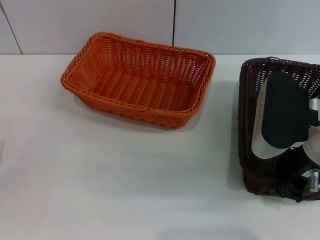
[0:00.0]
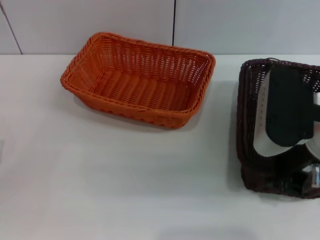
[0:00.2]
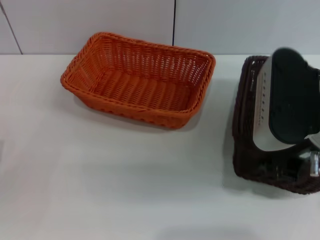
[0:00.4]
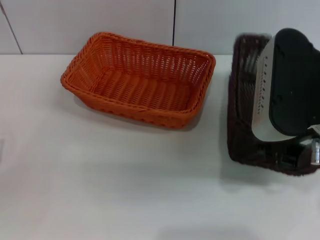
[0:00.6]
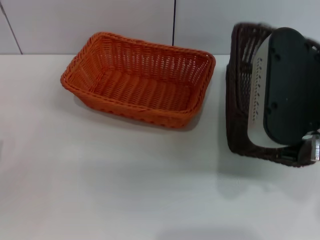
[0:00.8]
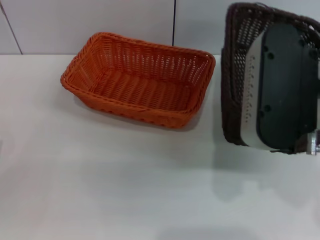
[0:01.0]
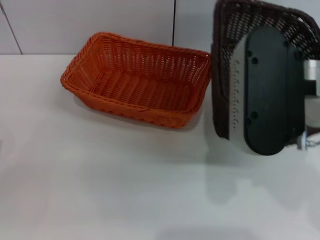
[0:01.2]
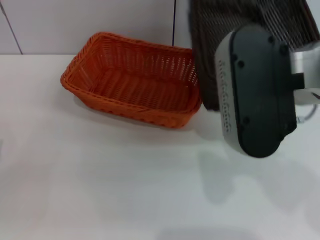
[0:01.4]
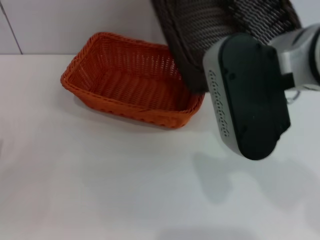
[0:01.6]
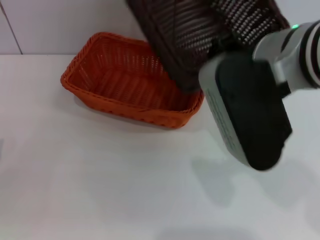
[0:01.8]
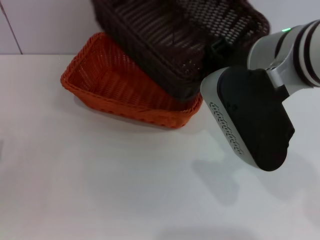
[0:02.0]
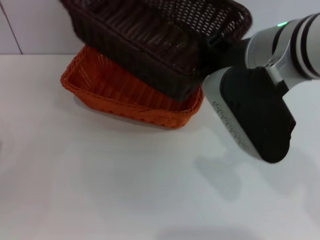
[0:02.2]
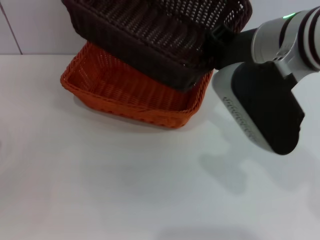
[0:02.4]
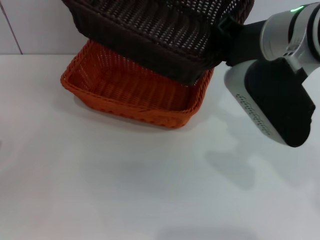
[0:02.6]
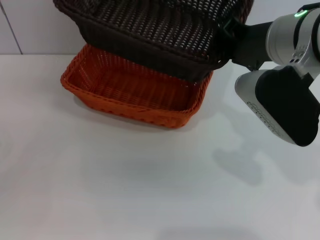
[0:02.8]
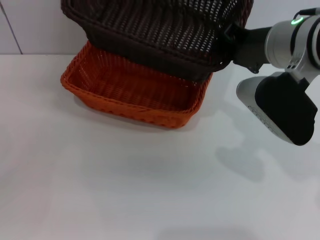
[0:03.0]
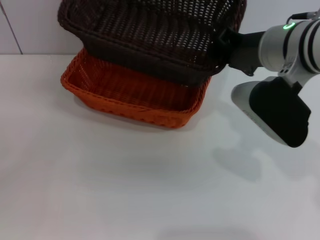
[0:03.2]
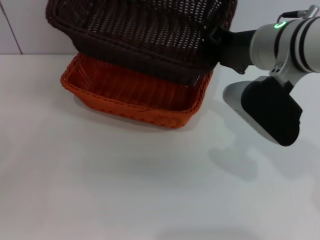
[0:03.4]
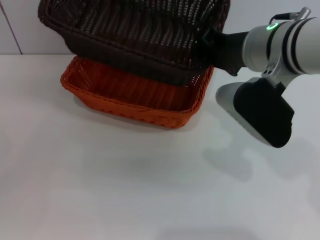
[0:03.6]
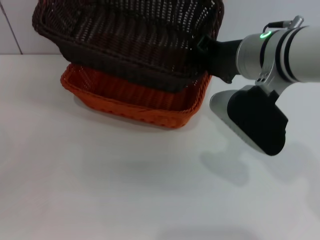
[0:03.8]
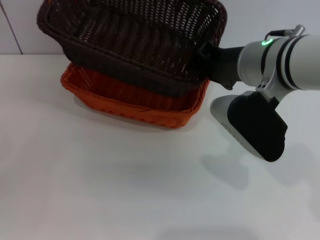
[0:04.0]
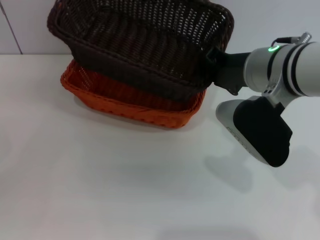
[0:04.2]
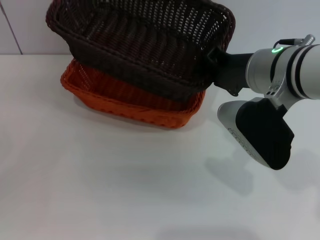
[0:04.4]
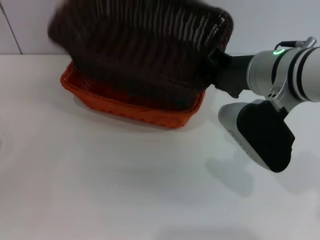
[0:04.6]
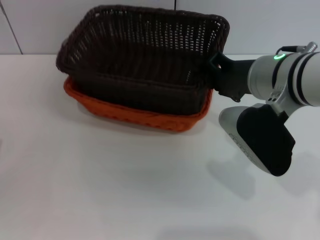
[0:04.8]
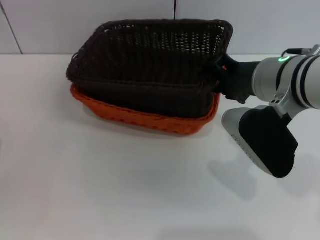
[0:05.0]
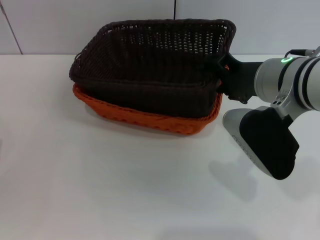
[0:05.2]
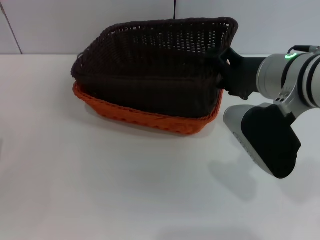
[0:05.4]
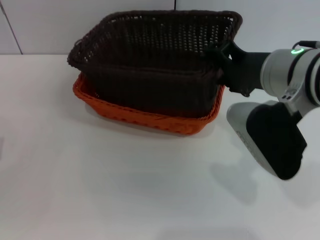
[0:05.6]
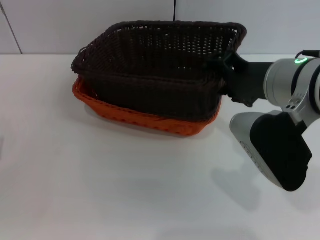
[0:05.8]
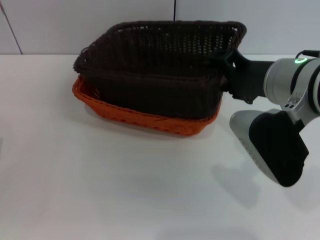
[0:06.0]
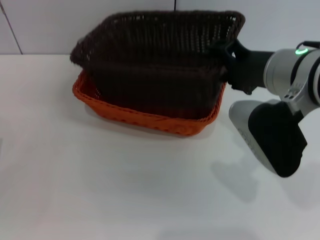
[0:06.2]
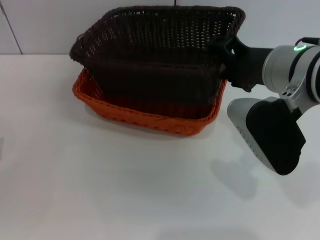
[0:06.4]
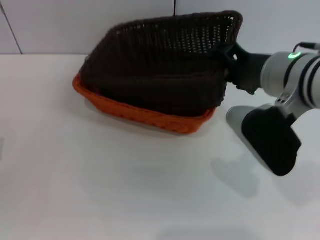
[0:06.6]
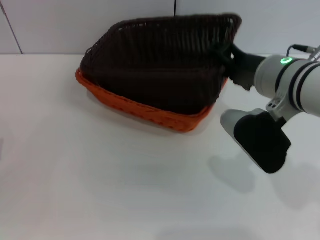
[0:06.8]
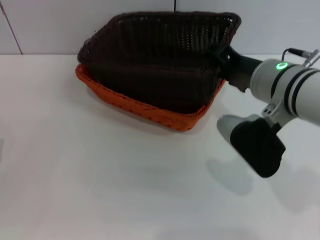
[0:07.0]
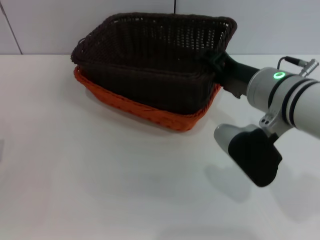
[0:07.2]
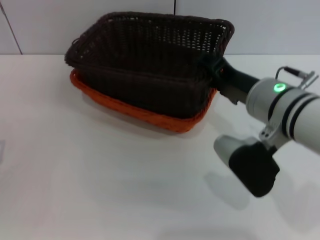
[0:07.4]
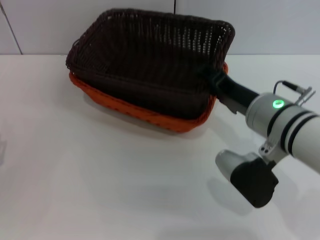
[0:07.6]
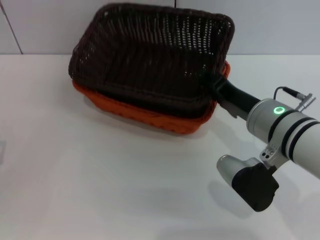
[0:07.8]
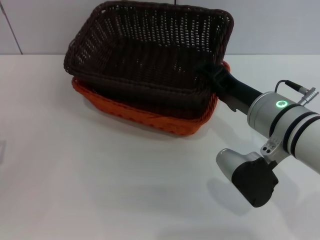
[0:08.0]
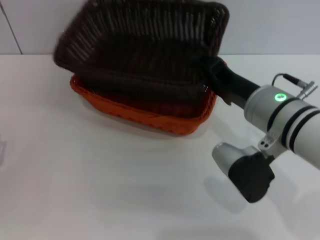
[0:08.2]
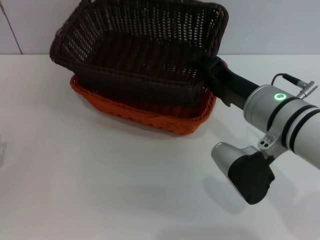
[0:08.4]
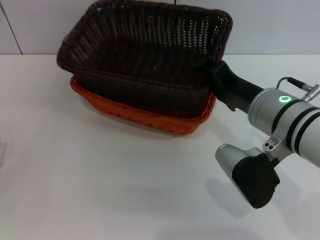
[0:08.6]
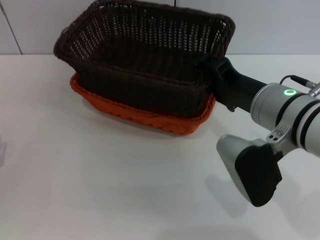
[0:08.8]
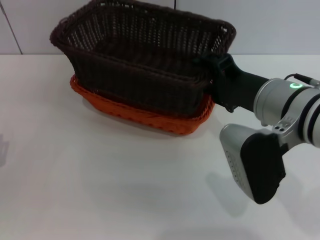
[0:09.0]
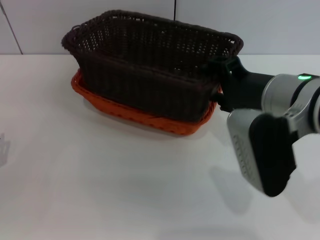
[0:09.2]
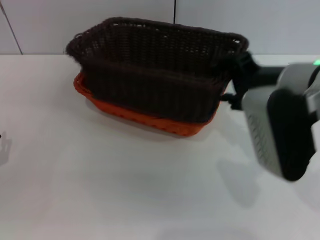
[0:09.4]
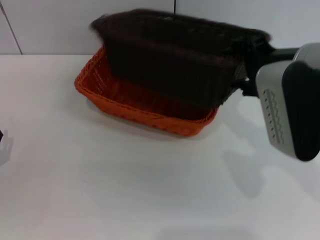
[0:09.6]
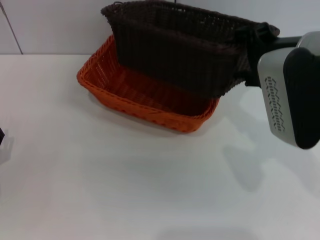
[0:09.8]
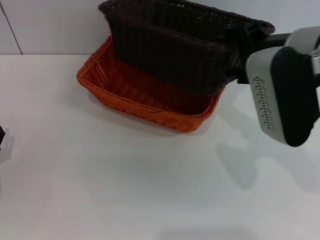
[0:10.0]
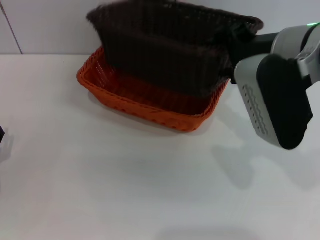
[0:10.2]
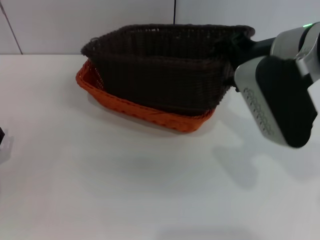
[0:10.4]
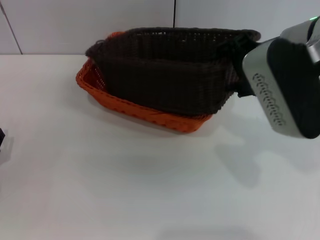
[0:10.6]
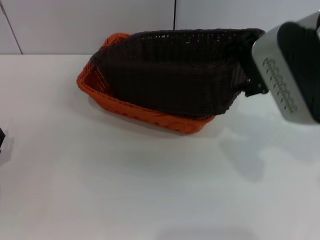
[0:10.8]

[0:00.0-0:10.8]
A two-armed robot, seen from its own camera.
0:00.0 to 0:01.6: The right gripper travels upward and to the left by some 10 cm.
0:01.6 to 0:03.0: The right gripper moves forward, some 5 cm.
0:03.0 to 0:04.6: The grippers make only small movements.
0:04.6 to 0:06.2: The right gripper opens.
0:06.2 to 0:07.8: The right gripper heads downward, covering approximately 10 cm.
0:07.8 to 0:09.2: The right gripper goes about 5 cm upward.
0:09.2 to 0:10.8: The right gripper shifts some 5 cm upward.

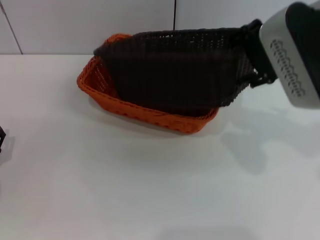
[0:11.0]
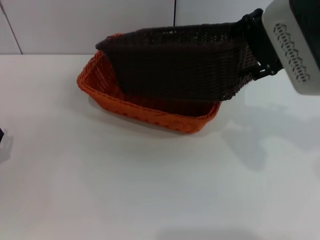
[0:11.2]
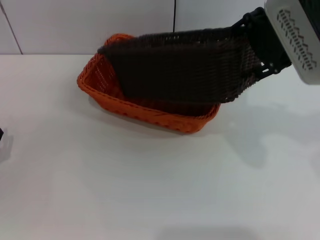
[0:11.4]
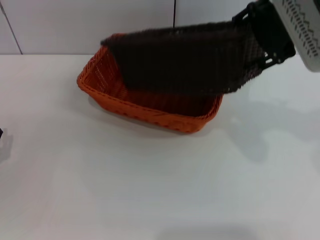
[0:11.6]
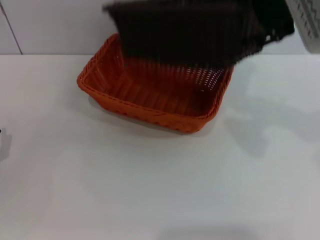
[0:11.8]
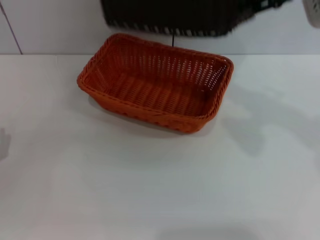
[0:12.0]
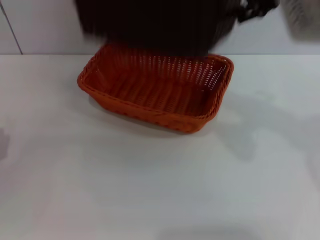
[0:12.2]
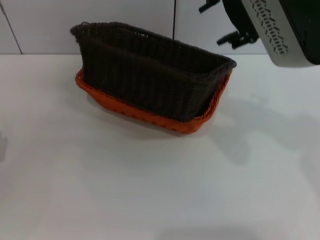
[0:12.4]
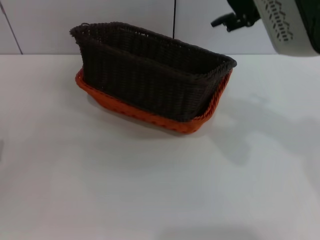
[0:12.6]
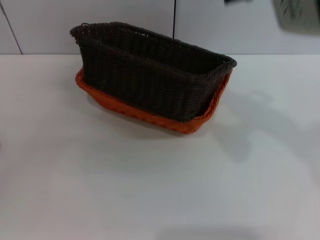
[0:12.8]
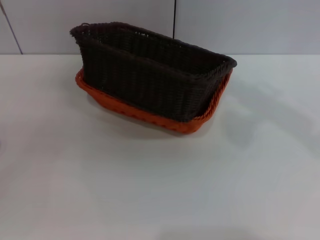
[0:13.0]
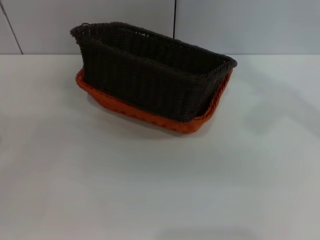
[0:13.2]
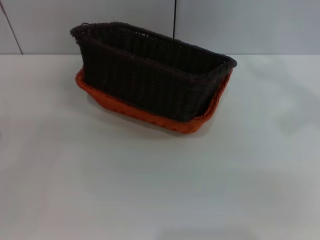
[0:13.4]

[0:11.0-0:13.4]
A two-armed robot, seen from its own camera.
0:11.0 to 0:12.2: The right gripper shifts some 5 cm upward.
0:12.2 to 0:13.4: The right gripper heads to the right, covering roughly 15 cm.

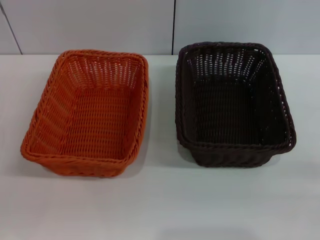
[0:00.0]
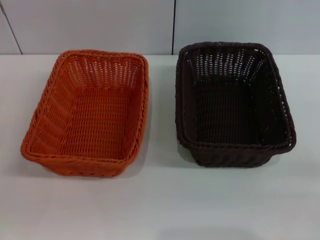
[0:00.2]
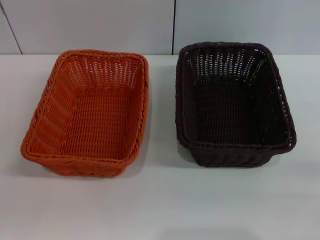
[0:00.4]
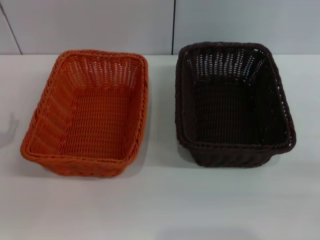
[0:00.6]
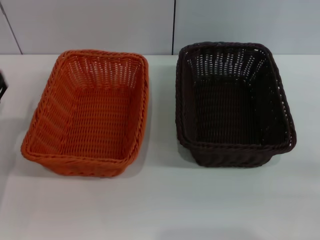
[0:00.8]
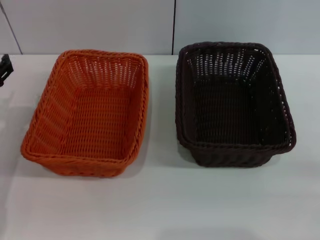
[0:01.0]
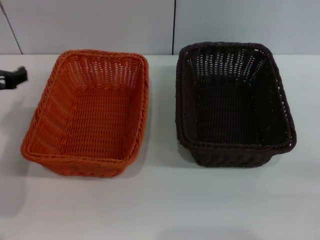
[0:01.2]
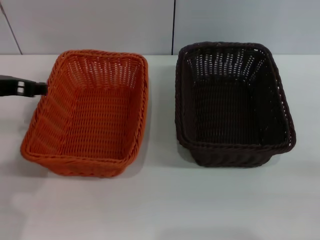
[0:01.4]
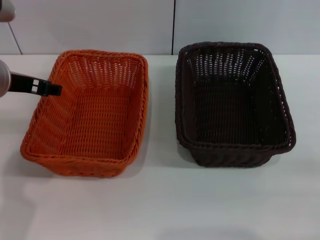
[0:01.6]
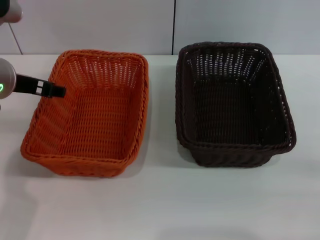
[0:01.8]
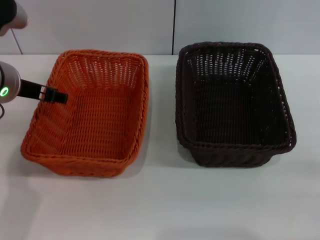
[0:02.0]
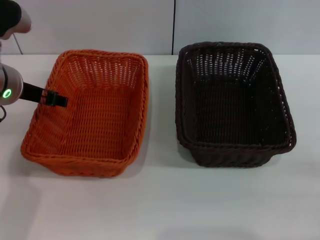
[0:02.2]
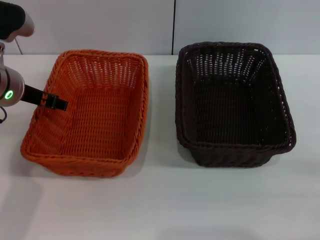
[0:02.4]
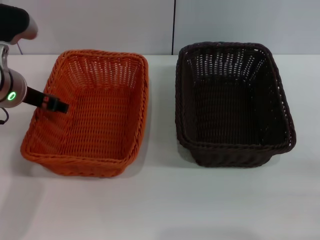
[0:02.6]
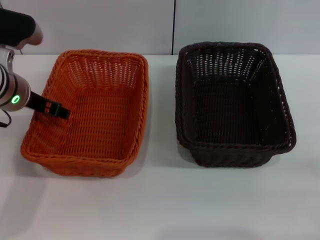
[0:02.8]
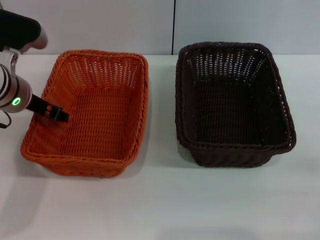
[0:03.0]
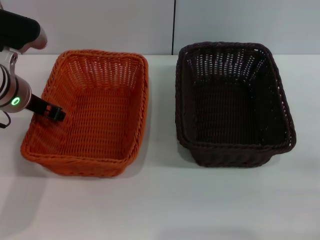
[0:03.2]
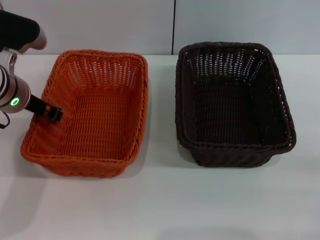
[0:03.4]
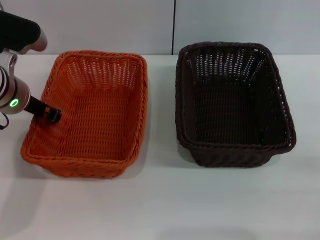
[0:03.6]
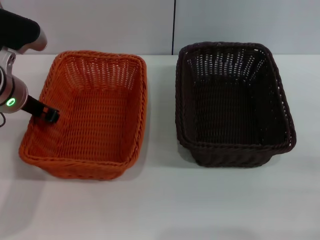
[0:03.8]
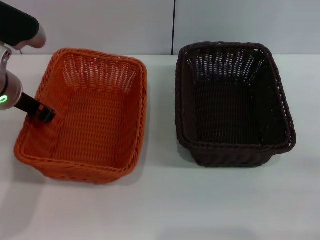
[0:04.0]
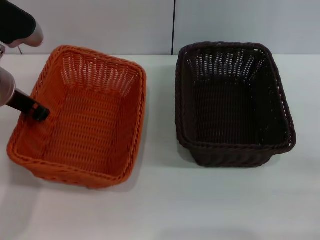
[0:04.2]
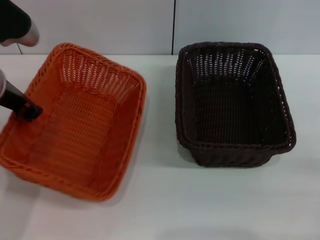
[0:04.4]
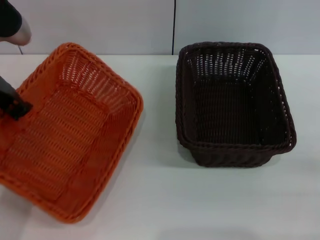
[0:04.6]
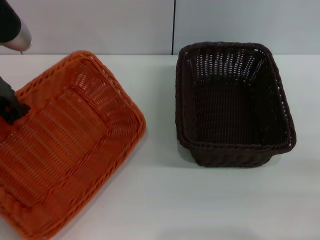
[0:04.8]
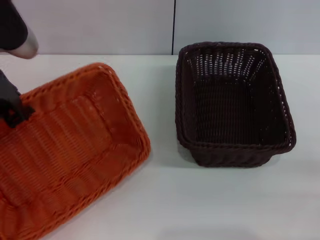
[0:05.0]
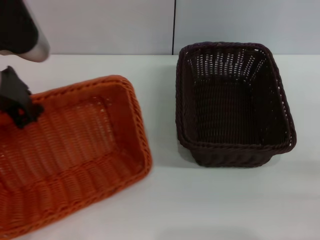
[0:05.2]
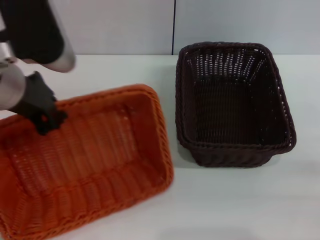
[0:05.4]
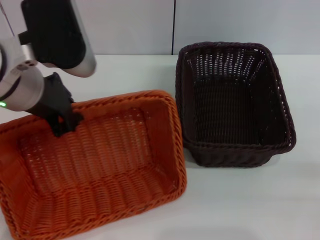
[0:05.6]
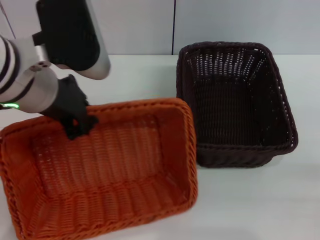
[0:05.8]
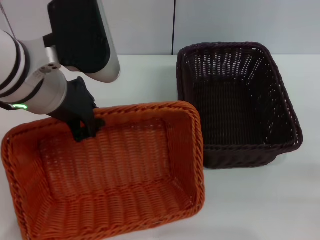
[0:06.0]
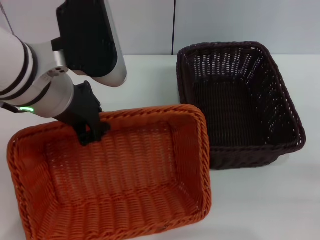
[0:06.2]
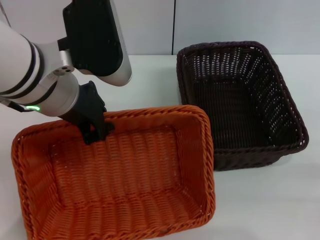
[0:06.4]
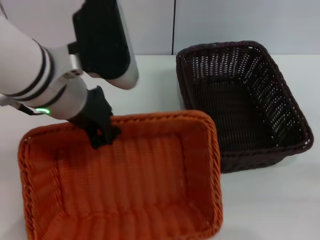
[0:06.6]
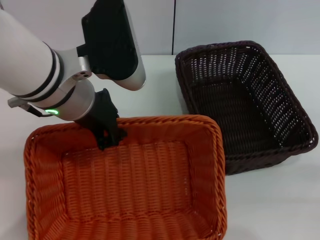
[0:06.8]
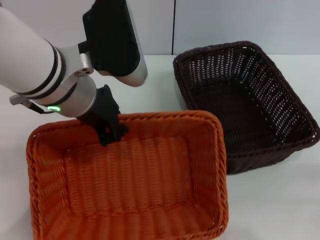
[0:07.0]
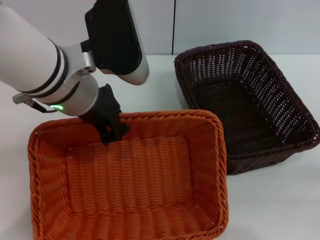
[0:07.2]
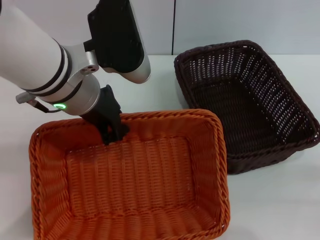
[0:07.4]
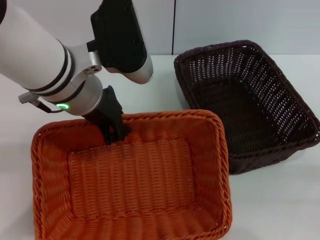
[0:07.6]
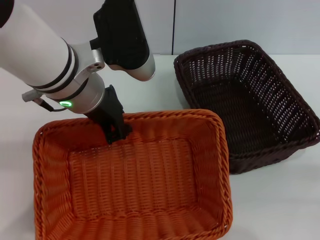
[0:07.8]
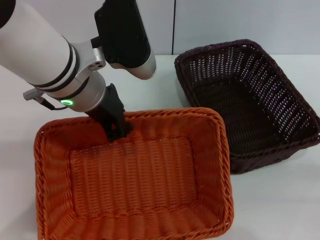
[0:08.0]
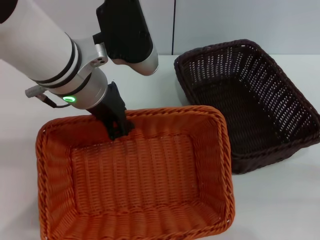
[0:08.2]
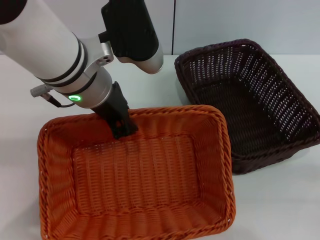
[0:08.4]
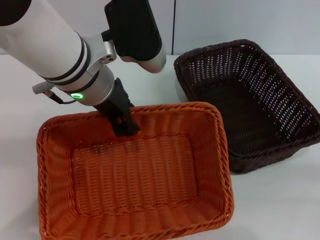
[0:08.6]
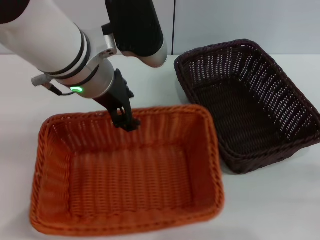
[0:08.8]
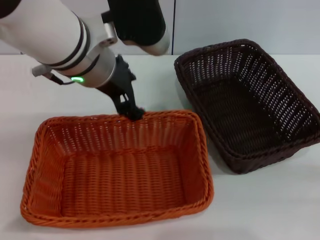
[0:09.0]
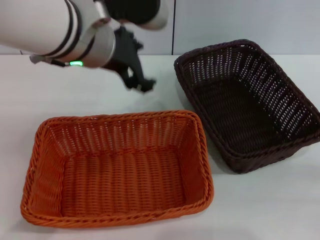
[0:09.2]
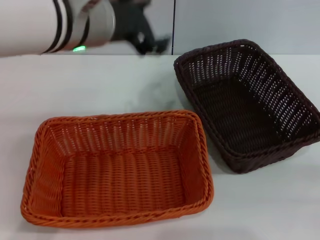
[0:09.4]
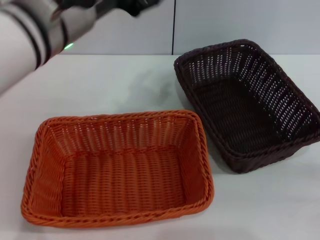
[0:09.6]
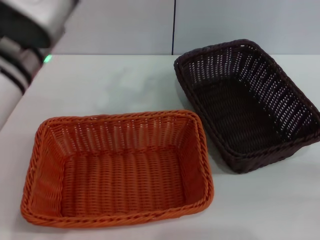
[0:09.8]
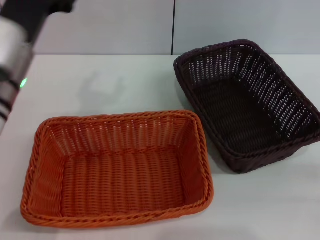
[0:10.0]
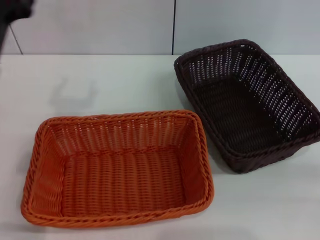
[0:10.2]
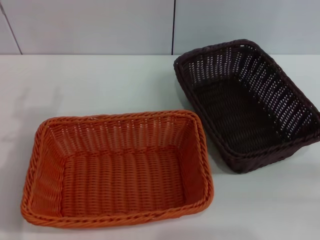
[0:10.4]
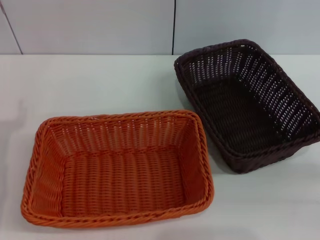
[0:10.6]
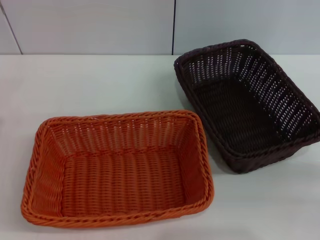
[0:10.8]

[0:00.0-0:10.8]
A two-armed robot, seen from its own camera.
Step, 0:00.0 to 0:04.4: Pick up the light basket with the left gripper.
Step, 0:04.6 to 0:08.8: Place the light basket in the center of view with the left gripper.
0:00.0 to 0:01.6: The left gripper goes about 25 cm upward, forward and to the right.
0:01.6 to 0:03.0: The left gripper ends up about 5 cm from where it was.
0:03.0 to 0:04.6: The left gripper is displaced upward by about 5 cm, and closes.
0:04.6 to 0:06.2: The left gripper is displaced to the right by some 10 cm.
0:07.8 to 0:09.2: The left gripper opens.
0:09.2 to 0:10.8: The left gripper travels to the left, downward and backward by approximately 30 cm.
